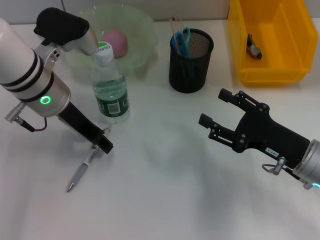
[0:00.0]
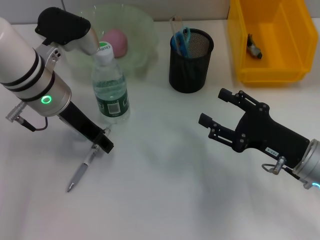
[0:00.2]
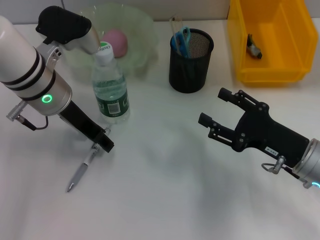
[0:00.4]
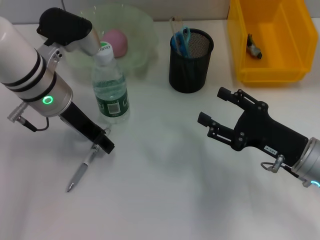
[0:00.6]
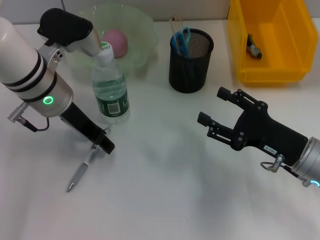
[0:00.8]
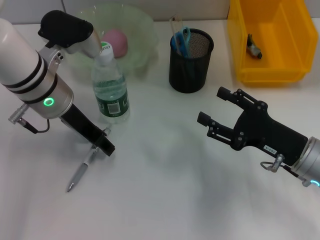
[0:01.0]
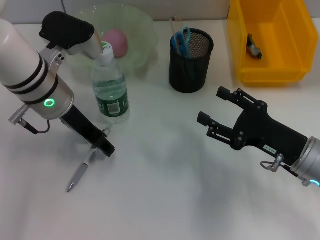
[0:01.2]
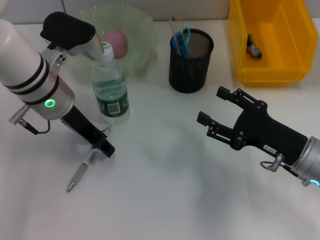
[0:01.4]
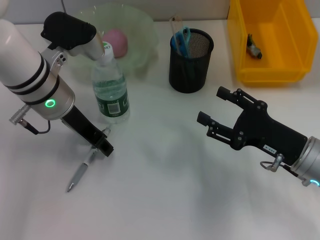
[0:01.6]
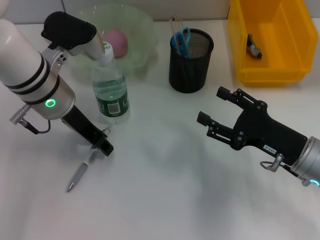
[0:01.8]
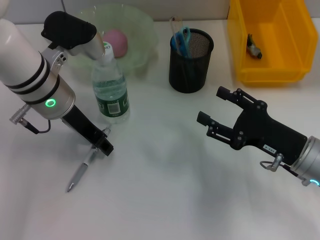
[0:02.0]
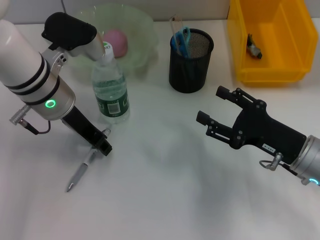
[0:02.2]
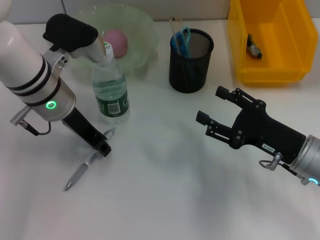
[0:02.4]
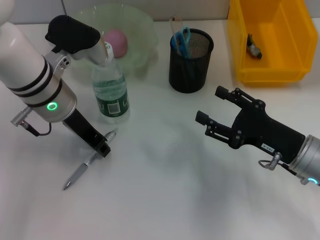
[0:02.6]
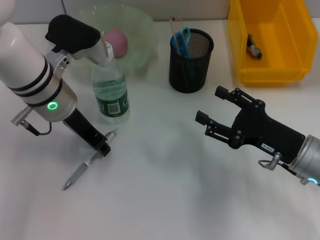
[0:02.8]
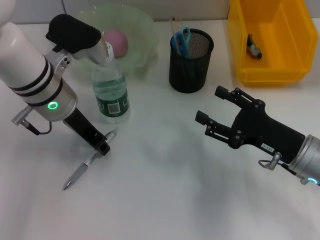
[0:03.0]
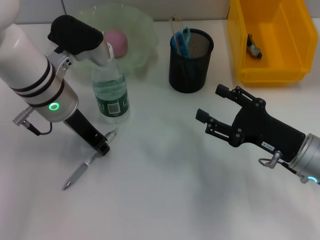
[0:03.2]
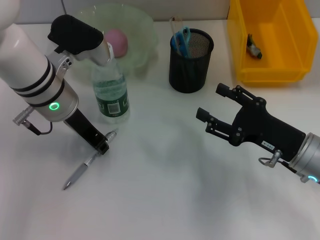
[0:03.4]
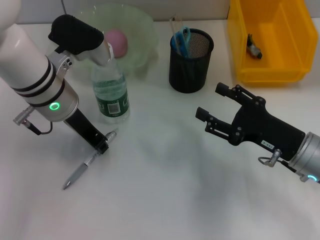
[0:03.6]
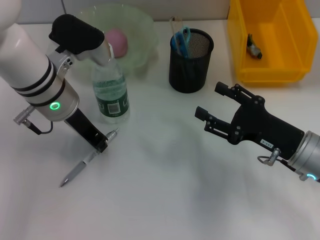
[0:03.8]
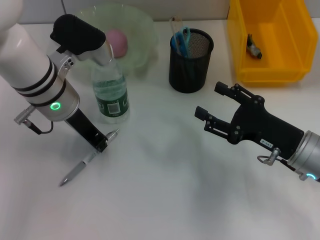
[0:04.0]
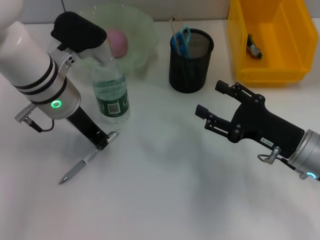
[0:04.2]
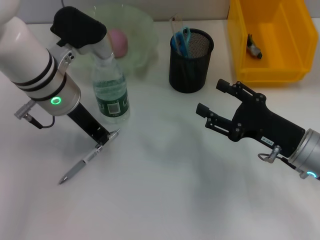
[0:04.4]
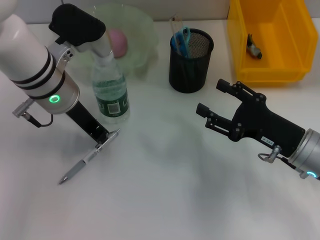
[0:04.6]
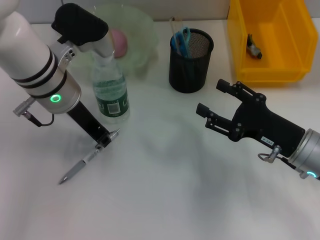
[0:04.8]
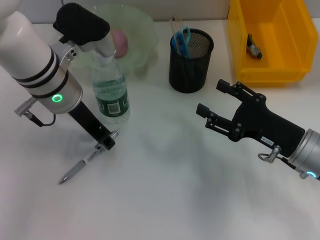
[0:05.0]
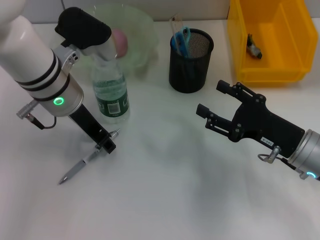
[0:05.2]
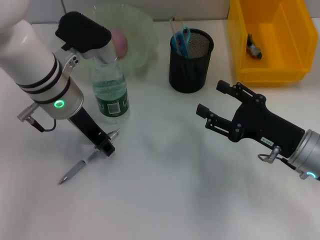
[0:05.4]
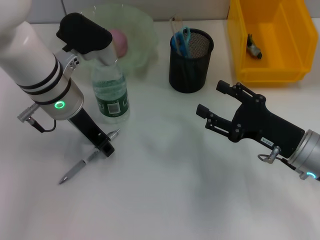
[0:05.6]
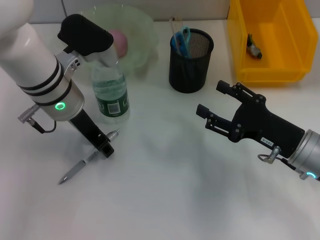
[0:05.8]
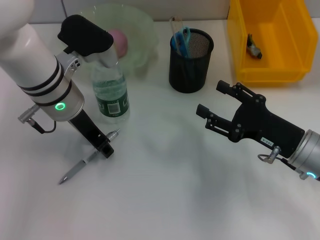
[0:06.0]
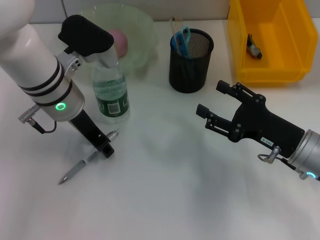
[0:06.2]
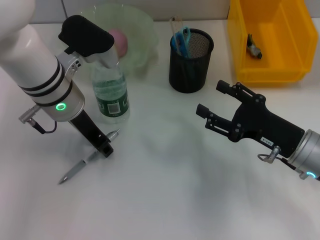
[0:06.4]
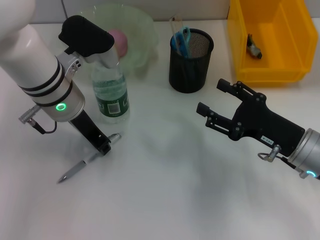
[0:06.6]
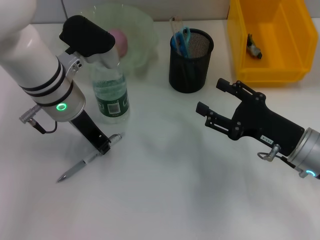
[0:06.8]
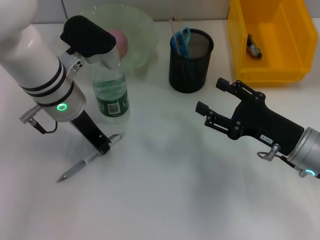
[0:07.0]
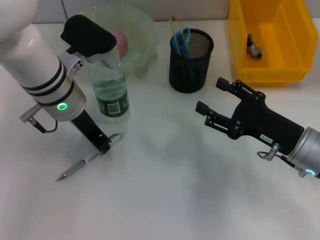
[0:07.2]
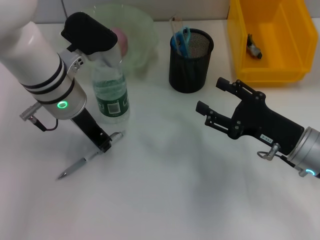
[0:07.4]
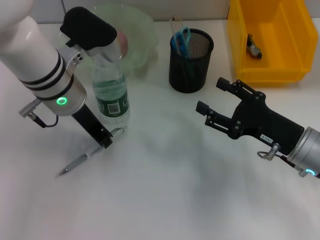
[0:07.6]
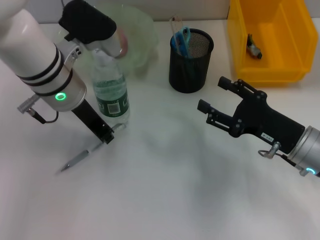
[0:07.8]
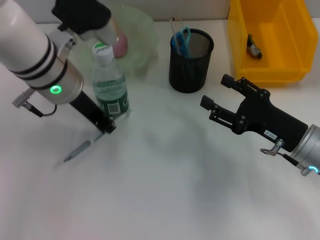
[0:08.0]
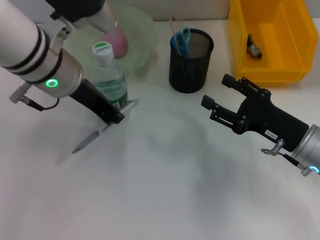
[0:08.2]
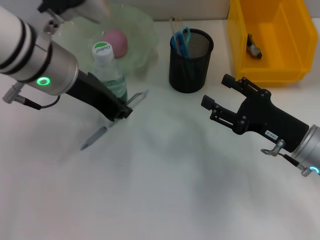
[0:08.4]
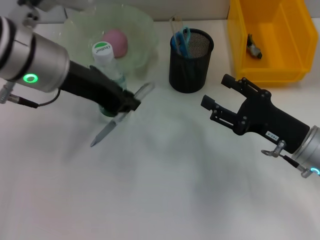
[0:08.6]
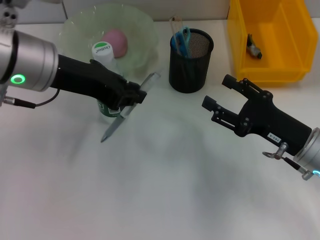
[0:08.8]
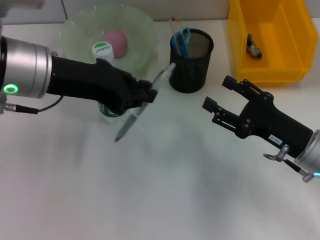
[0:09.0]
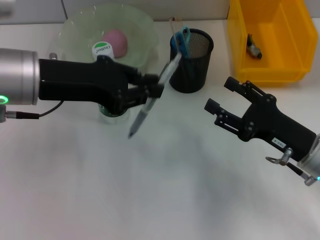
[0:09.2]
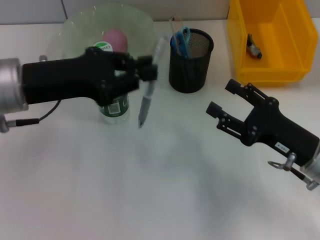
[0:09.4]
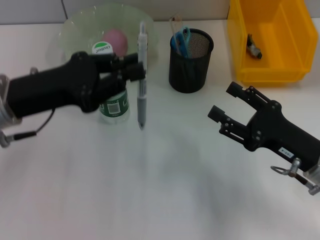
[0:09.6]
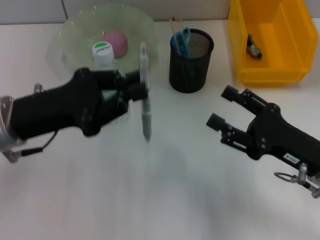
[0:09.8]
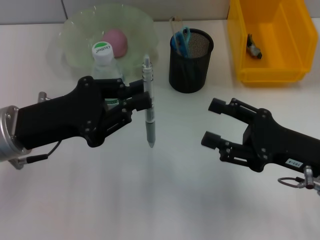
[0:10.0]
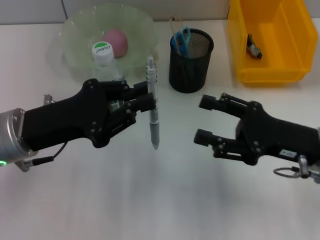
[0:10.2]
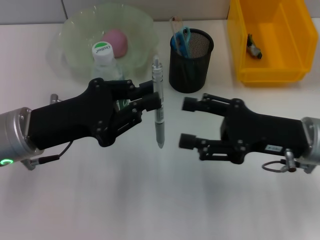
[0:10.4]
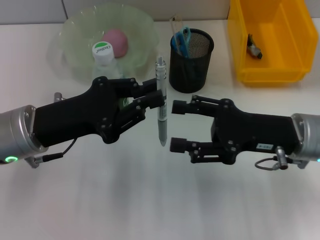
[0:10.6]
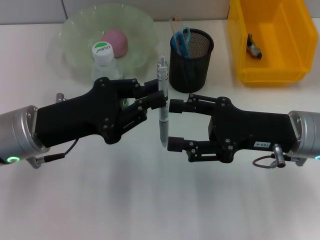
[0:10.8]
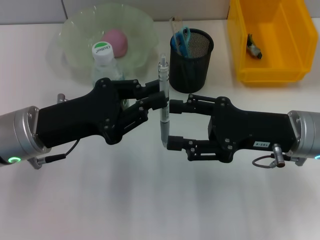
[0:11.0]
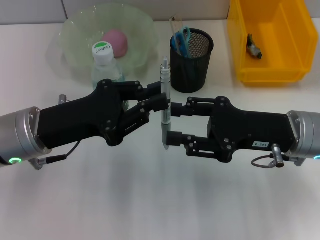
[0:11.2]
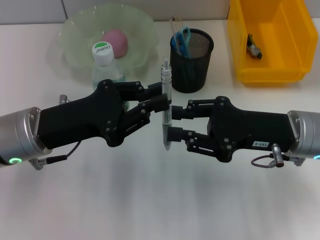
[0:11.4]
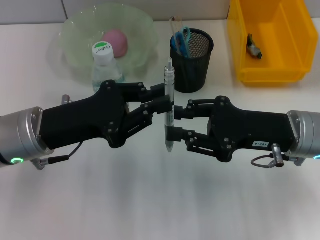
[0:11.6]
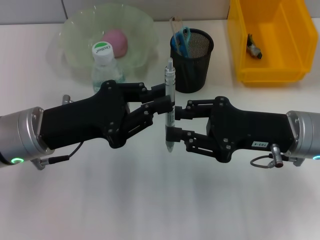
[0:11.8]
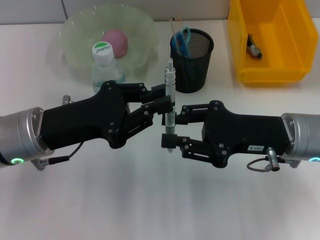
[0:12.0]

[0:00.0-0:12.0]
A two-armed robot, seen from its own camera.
Step, 0:00.0 to 0:07.2: Grab the gray spring-action pen with the left hand.
0:00.0 to 0:01.6: The two grippers keep their place.
0:01.6 to 0:03.0: The left gripper closes its fingers.
0:03.0 to 0:04.4: The two grippers keep their place.
0:04.4 to 0:06.0: The left gripper opens.
0:06.0 to 0:07.6: The left gripper closes up.
0:07.6 to 0:09.0: The left gripper is displaced upward and backward by roughly 10 cm.
0:09.0 to 0:10.4: The right gripper is displaced upward by approximately 5 cm. The left gripper is displaced downward by some 10 cm.
0:10.4 to 0:12.0: The right gripper closes up.

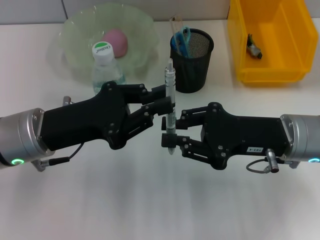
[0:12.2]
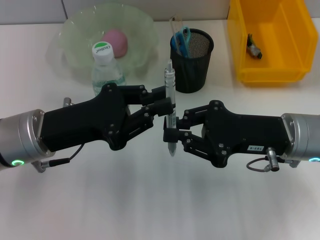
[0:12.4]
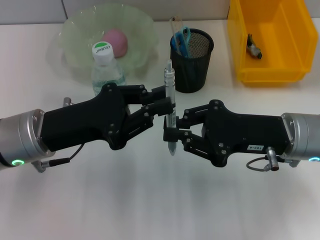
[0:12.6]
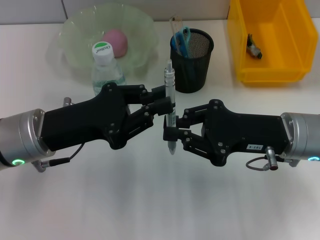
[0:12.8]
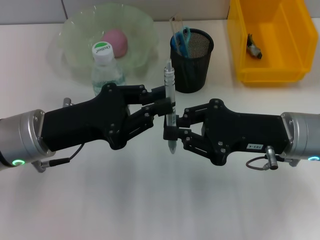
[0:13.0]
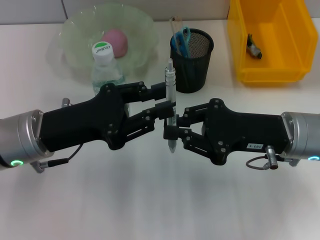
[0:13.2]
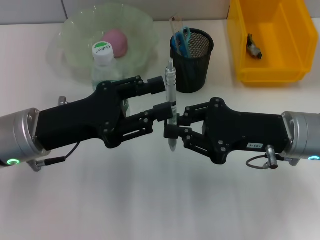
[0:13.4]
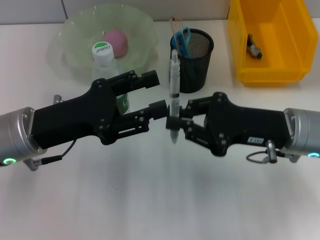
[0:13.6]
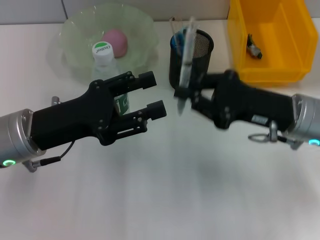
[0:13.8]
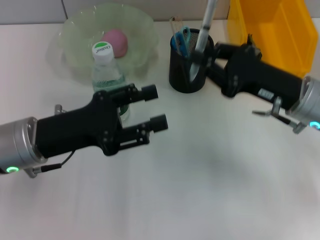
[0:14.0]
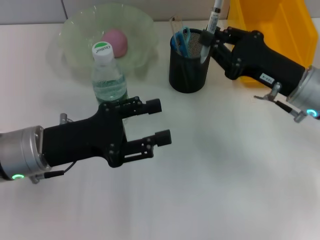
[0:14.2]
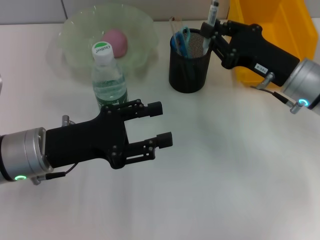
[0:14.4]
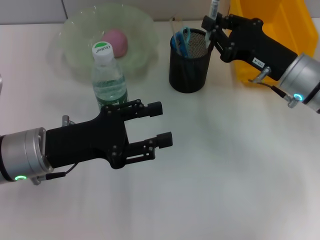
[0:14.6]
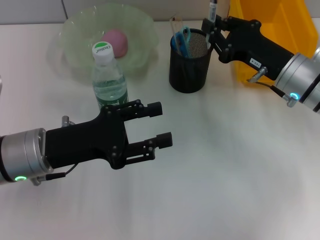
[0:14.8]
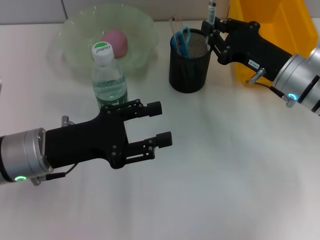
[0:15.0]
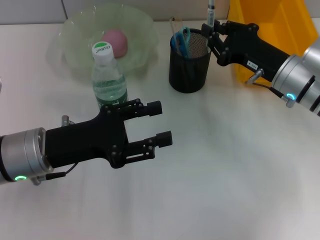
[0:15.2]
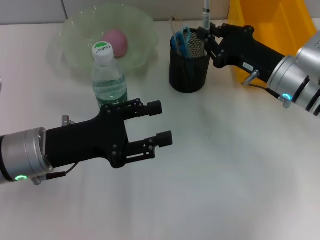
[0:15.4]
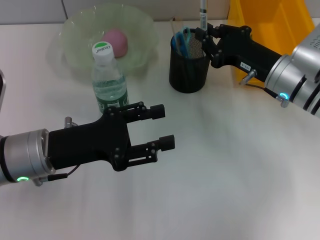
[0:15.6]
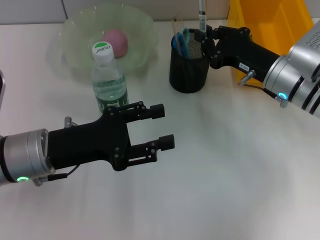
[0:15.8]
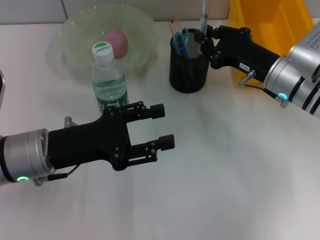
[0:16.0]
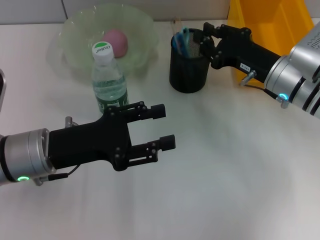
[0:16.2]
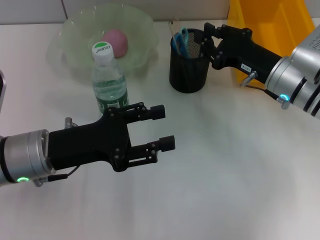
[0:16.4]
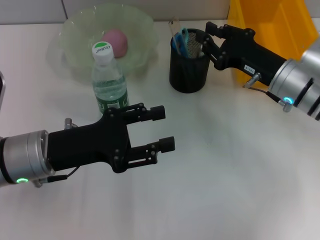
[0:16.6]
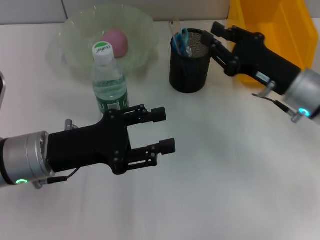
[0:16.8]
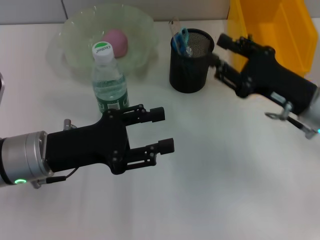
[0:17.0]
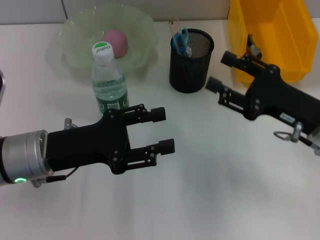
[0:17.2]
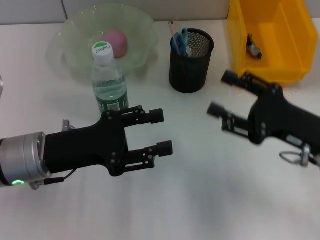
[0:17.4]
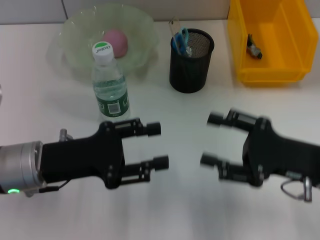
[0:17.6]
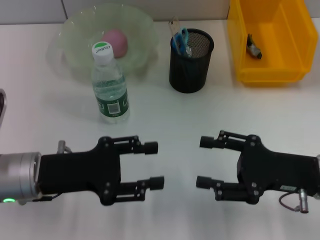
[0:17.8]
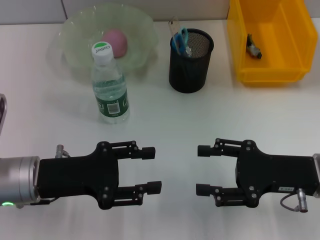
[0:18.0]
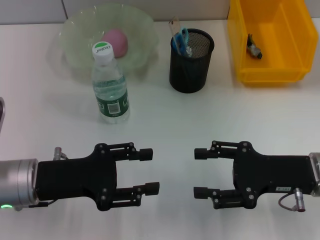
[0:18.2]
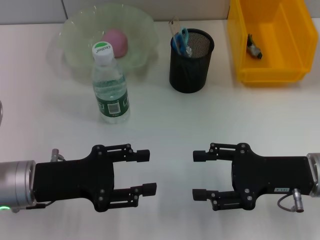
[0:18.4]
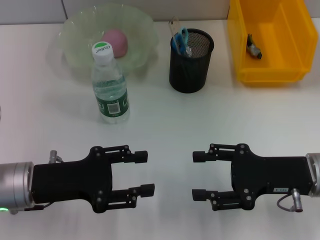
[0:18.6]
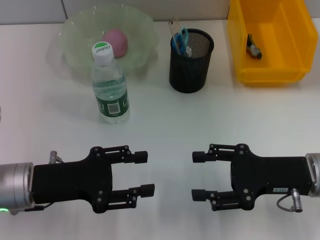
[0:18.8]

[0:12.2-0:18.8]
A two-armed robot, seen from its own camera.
Step, 0:13.6 to 0:16.4: Place the gray spring-action pen into the pen holder with the right hand.
0:12.2 to 0:13.8: The left gripper opens.
0:13.8 to 0:15.4: The right gripper is displaced forward by roughly 5 cm.
0:15.4 to 0:17.2: The right gripper goes approximately 10 cm backward.
0:17.2 to 0:18.8: The right gripper opens up.
